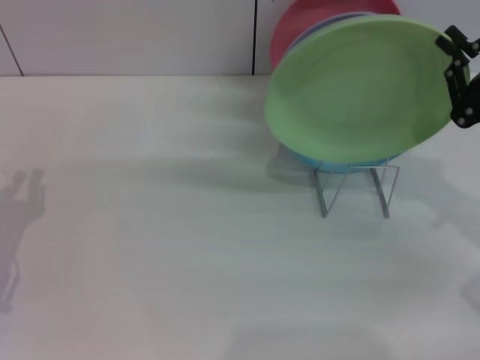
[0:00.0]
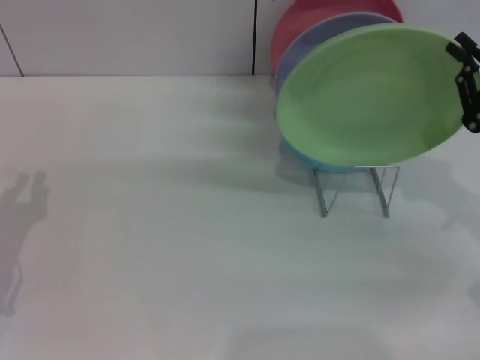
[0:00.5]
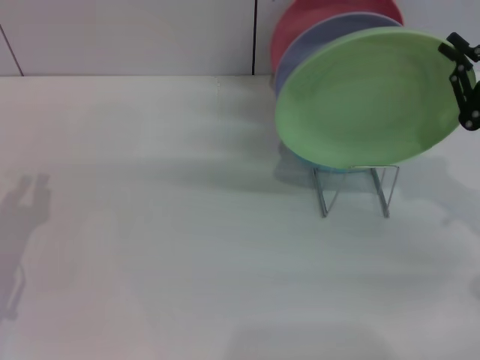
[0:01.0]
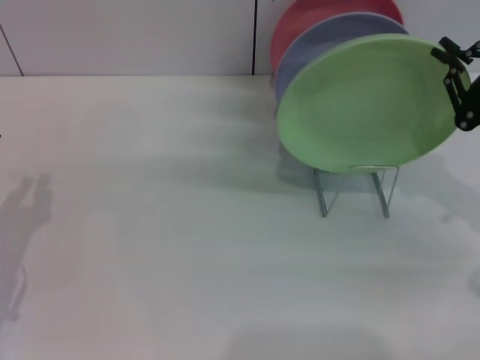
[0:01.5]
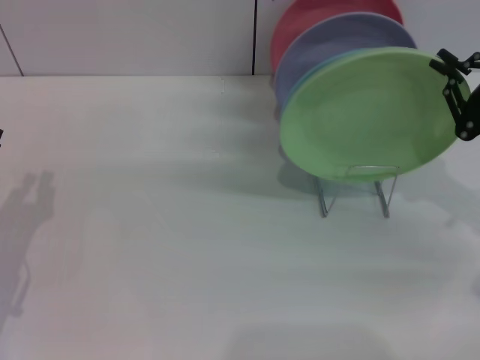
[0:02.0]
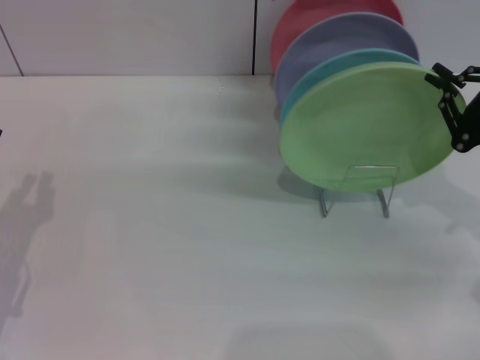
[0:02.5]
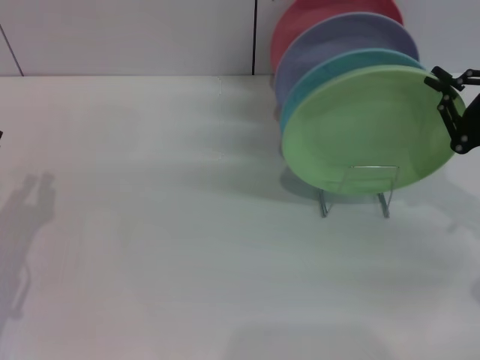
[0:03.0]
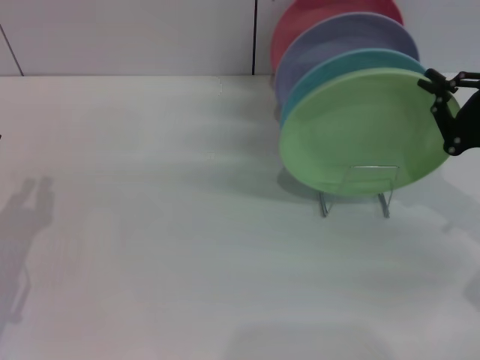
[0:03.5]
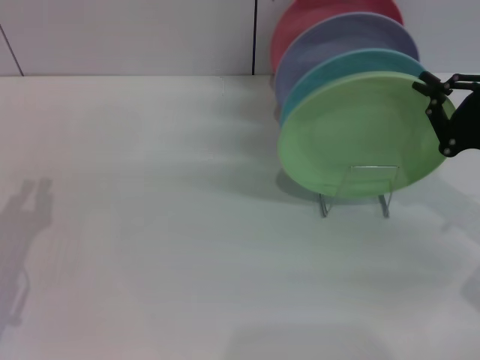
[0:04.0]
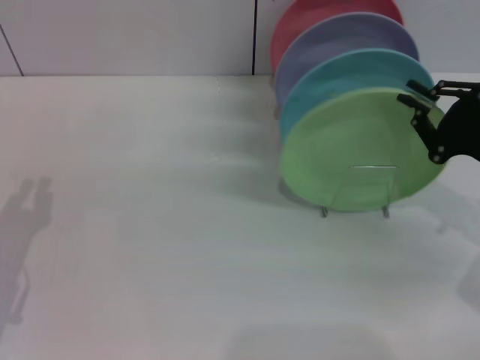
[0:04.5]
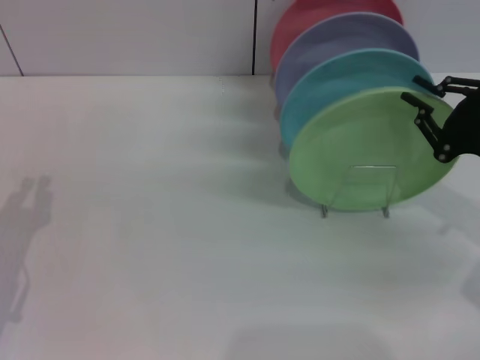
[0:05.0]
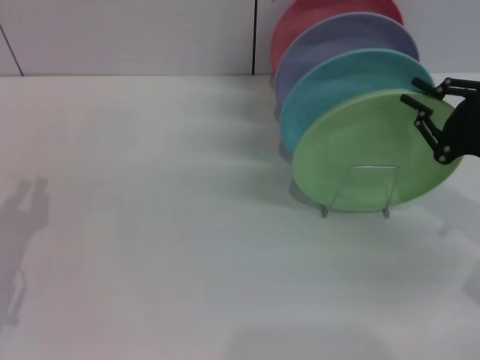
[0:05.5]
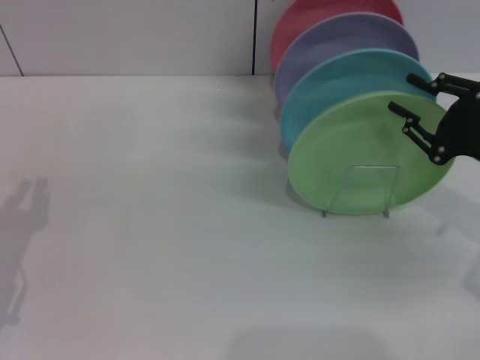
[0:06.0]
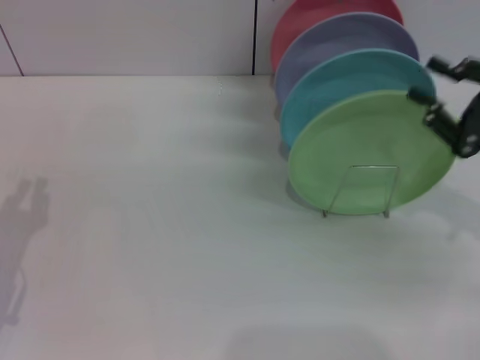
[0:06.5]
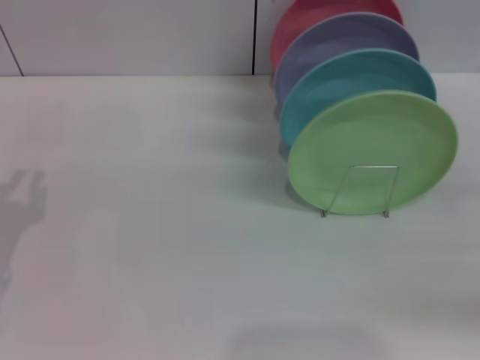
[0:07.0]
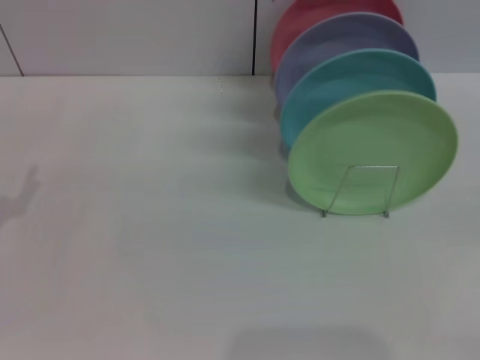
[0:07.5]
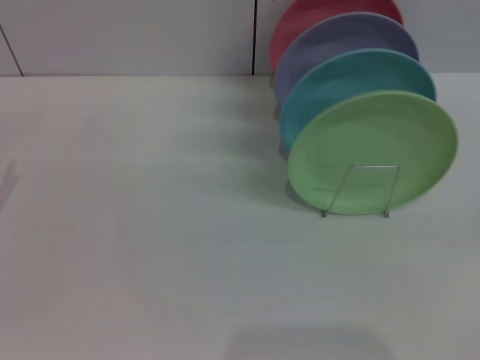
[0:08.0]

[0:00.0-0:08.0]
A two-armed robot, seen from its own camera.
Task of the whole recording: Grip the plate with one hand, pass it to the other, then set it on the shelf.
Step, 0:00.0 to 0:06.5: Place the plate on the shelf with the right gripper.
0:00.0 to 0:06.0: The grippers make only small movements.
0:06.0 to 0:08.0: The right gripper shifts some 15 cm backward and to the right, and opens.
